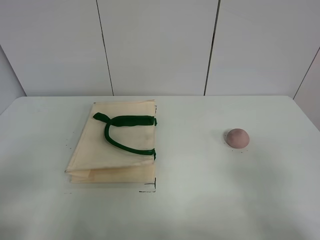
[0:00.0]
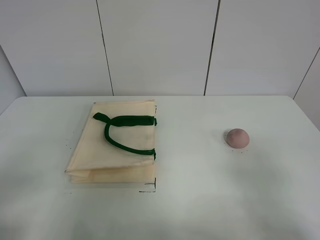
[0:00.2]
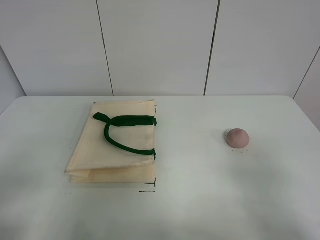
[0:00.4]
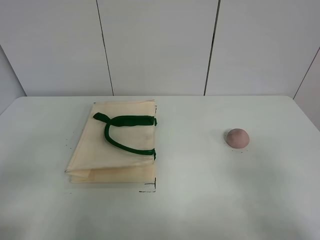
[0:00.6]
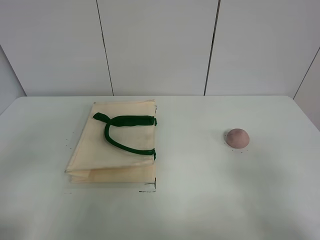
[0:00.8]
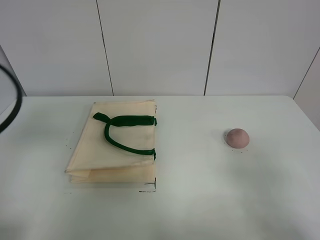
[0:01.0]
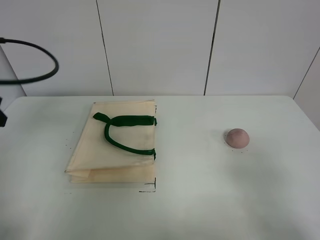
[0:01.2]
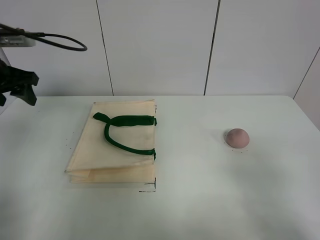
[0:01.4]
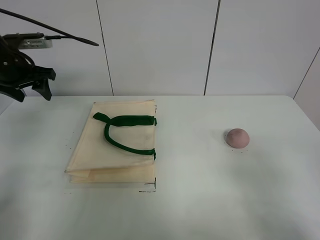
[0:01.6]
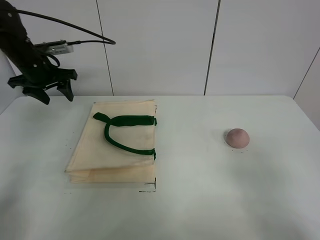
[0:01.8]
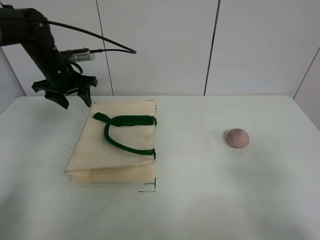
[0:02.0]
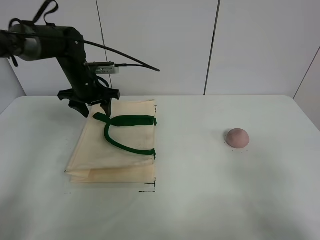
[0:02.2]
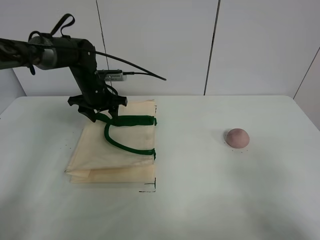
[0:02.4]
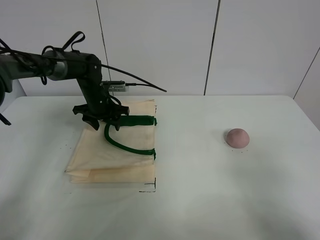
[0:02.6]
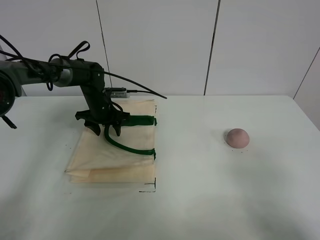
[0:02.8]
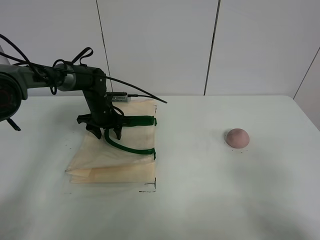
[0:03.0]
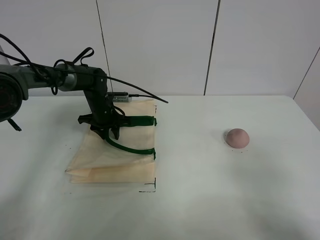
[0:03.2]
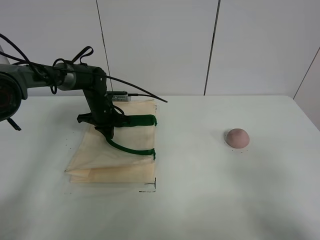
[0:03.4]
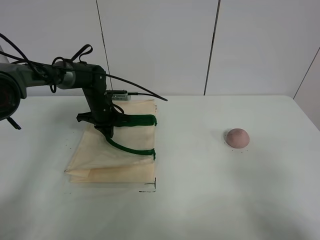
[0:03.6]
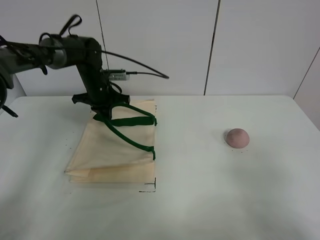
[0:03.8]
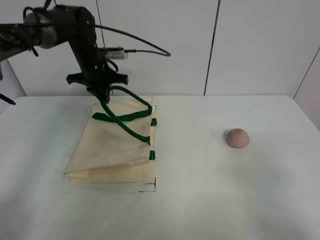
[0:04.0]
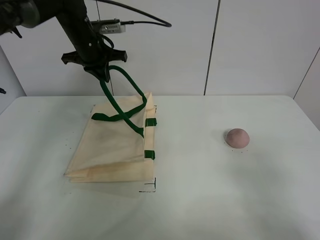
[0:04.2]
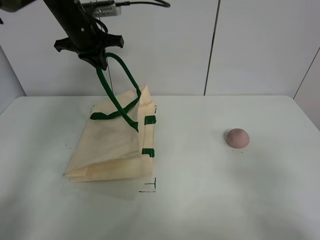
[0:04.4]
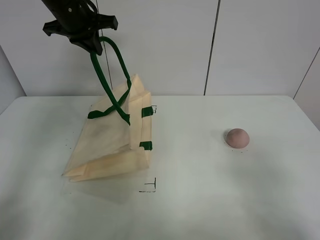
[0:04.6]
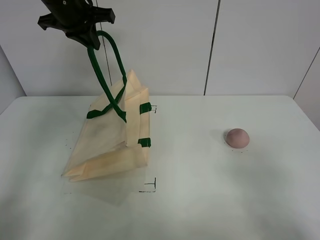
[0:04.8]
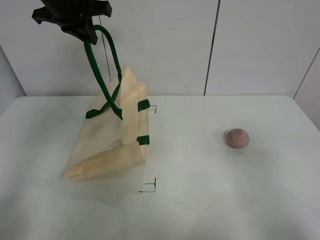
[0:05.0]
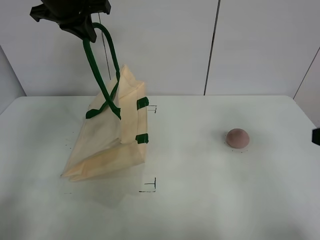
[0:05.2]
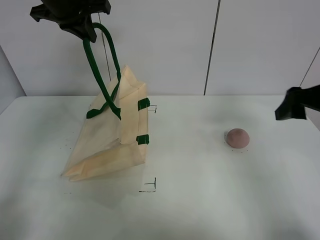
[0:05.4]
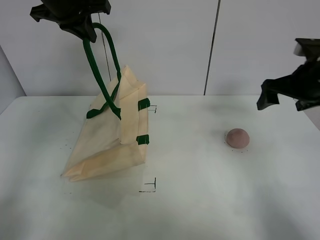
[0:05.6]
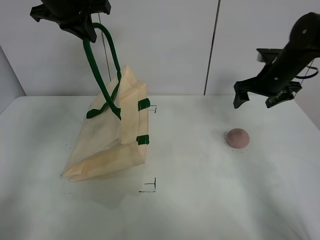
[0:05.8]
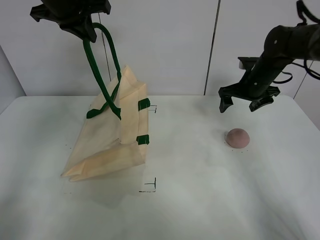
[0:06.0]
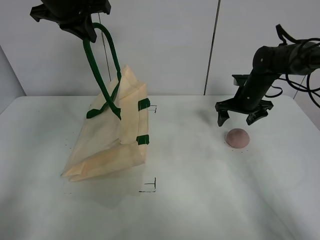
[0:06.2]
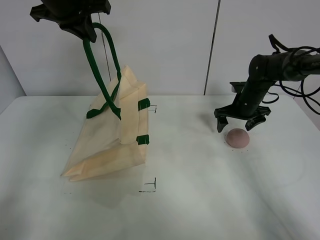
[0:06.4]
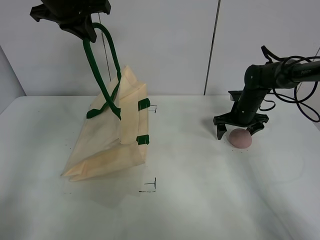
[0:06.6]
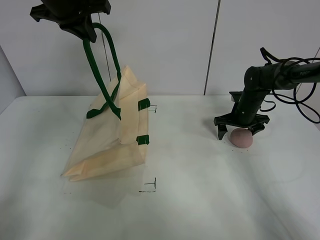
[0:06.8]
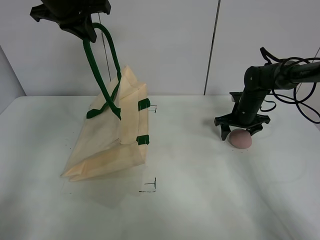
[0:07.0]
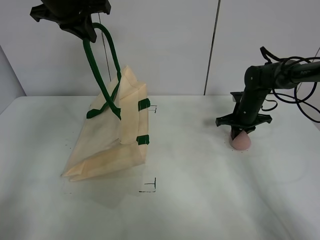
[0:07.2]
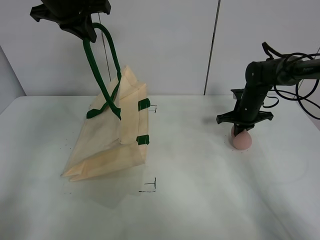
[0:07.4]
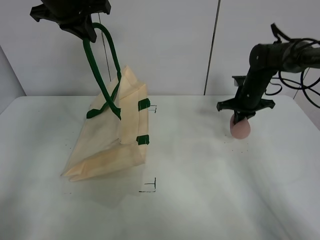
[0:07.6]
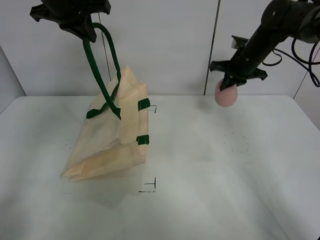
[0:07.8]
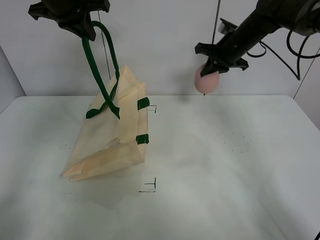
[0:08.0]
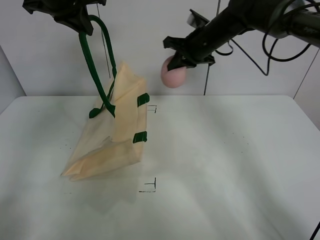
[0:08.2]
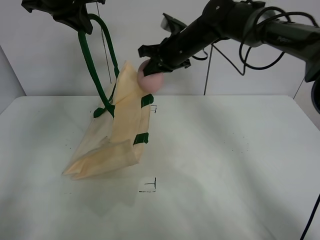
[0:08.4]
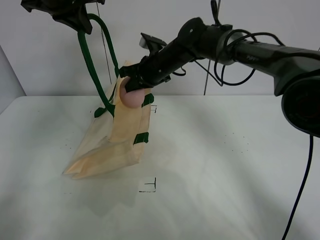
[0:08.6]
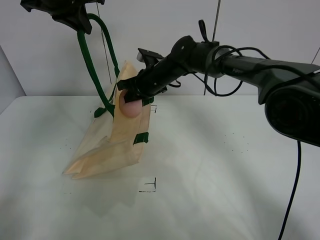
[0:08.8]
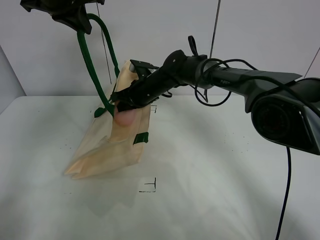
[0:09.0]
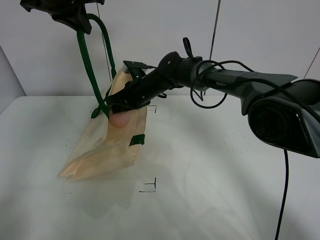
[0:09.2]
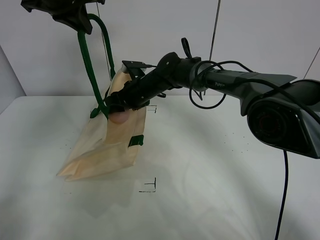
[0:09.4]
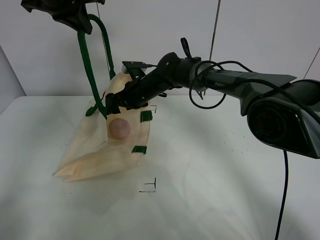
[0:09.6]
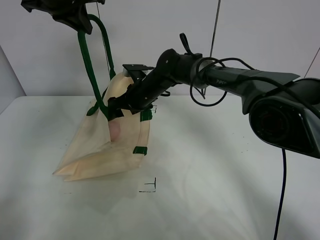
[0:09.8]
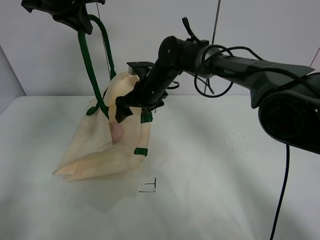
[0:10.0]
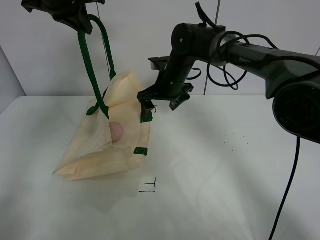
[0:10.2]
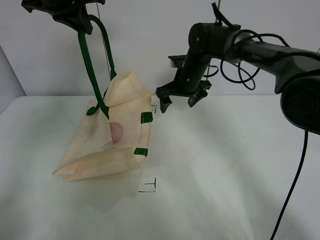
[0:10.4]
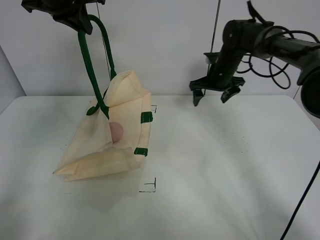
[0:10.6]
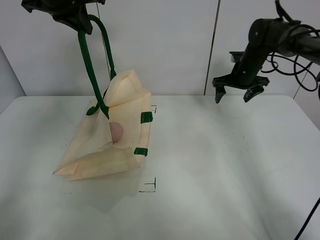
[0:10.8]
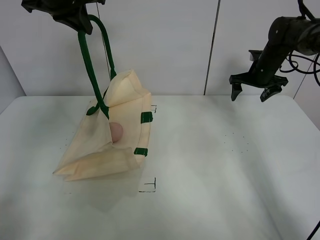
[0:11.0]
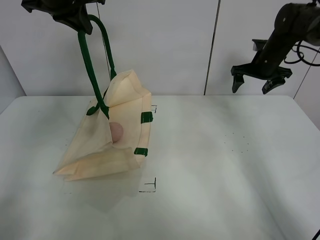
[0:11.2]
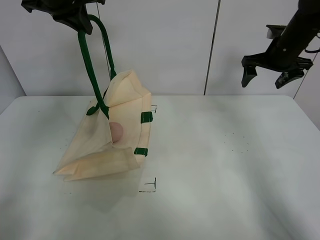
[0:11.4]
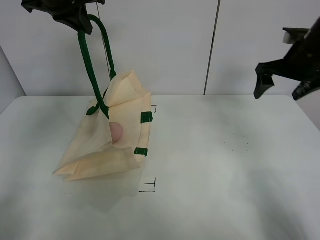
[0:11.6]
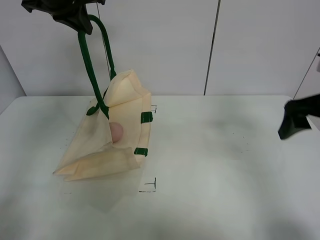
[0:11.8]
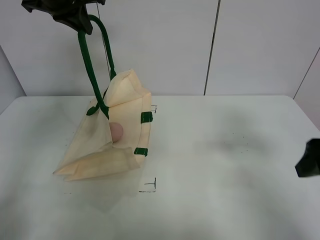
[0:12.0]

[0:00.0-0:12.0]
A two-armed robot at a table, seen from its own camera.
Task of the whole recording: open the white linen bag and put the peach in the bag.
Step, 0:00.0 to 0:04.8: Lift the handbag with left gripper.
Step, 0:05.0 to 0:07.2: Grasp the peach with right gripper.
Step, 0:07.4 to 0:09.6: Place the peach in the handbag with right gripper.
0:01.6 to 0:03.0: The left gripper heads downward, to the right and forward, covering some 25 cm.
0:03.0 to 0:04.4: The left gripper moves upward, about 20 cm, and closes up.
0:04.4 to 0:06.0: The left gripper shifts approximately 10 cm upward, while the right gripper is displaced forward by approximately 40 cm.
0:06.0 to 0:07.6: The right gripper moves downward, some 10 cm, and closes.
0:07.6 to 0:09.0: The right gripper goes roughly 25 cm to the left.
0:09.0 to 0:10.4: The right gripper heads to the right, covering some 5 cm, and opens.
0:10.4 to 0:12.0: The right gripper goes about 35 cm backward and to the right.

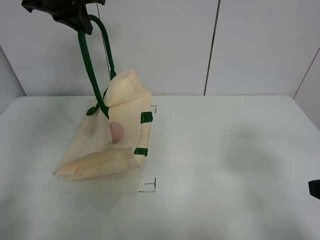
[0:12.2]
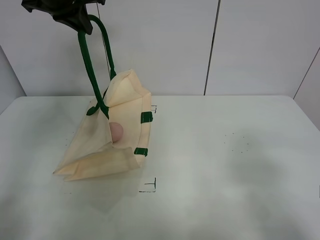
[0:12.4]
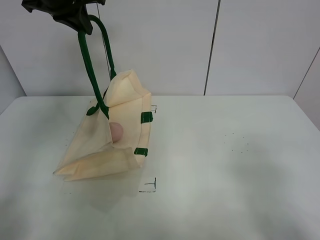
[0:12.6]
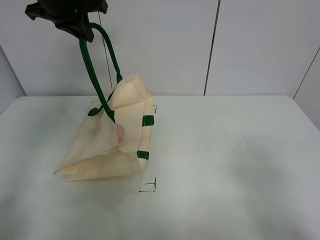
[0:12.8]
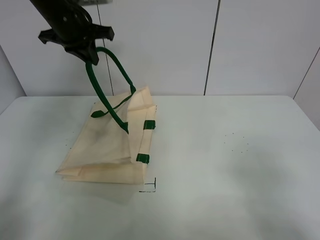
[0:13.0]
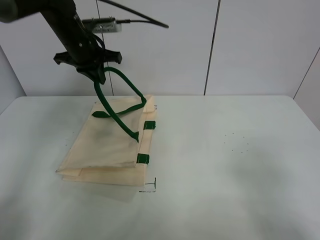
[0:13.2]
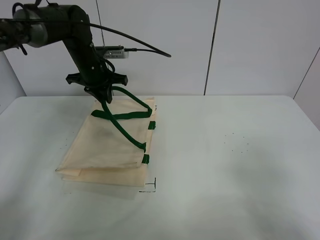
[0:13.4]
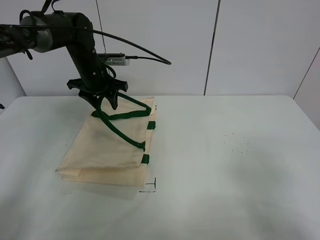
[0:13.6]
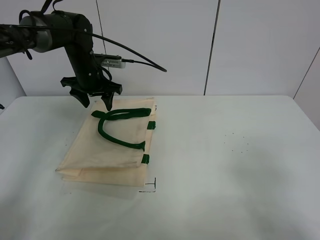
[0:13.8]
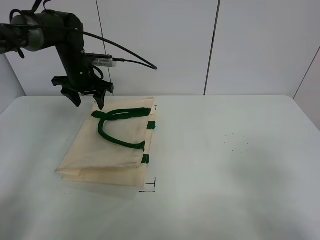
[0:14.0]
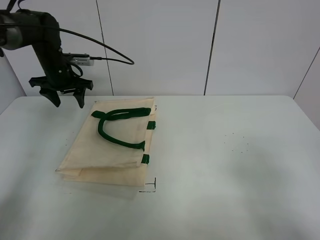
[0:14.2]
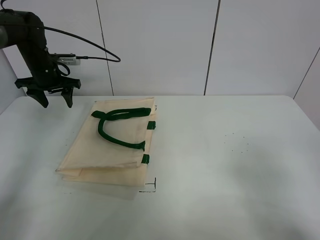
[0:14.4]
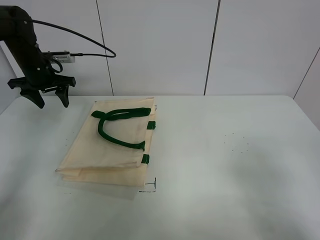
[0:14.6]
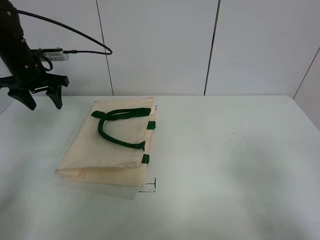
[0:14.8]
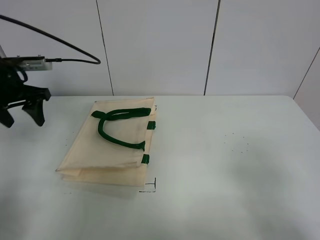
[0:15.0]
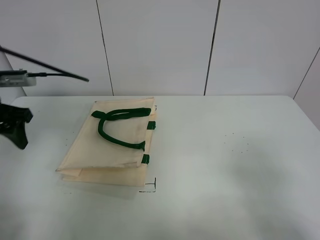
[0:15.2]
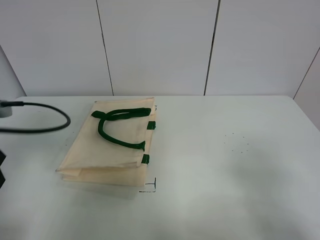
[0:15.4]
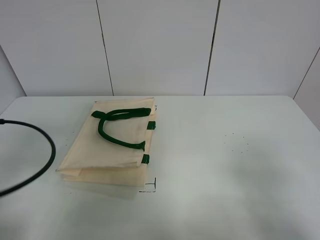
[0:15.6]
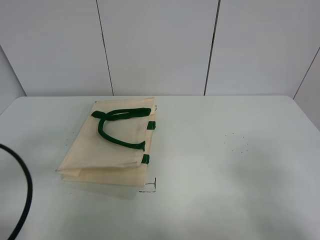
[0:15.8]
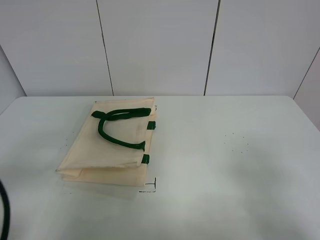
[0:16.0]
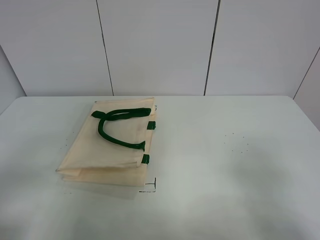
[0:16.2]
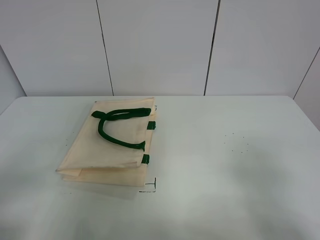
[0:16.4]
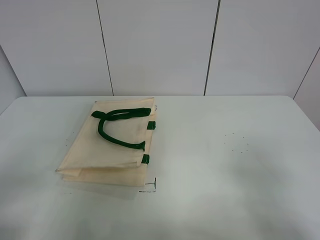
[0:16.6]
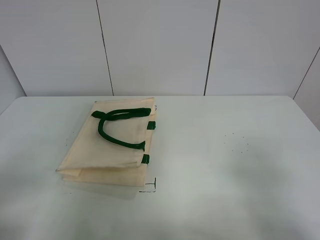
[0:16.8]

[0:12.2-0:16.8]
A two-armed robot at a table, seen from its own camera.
Task of the whole recording: open the white linen bag and put the peach in the bag.
0:12.2 to 0:13.8: The left gripper travels downward by about 20 cm, and opens its fingers. Meanwhile the right gripper shifts approximately 10 cm backward.
0:13.8 to 0:15.2: The left gripper travels backward and to the left by about 20 cm.
0:15.2 to 0:16.8: The left gripper is displaced backward by about 30 cm.

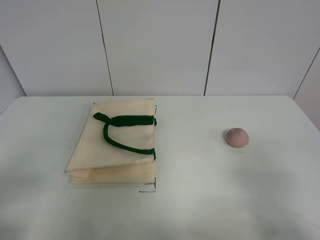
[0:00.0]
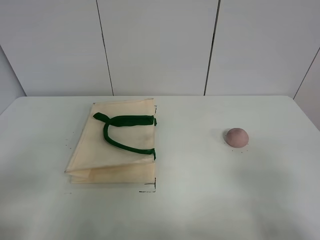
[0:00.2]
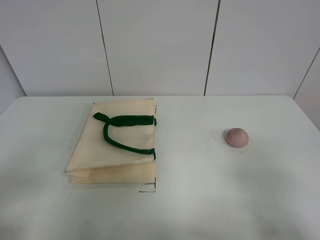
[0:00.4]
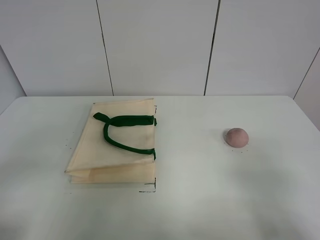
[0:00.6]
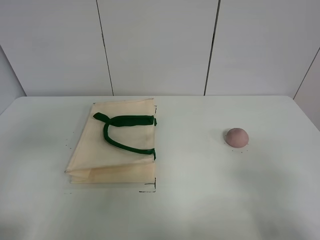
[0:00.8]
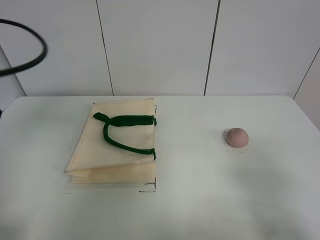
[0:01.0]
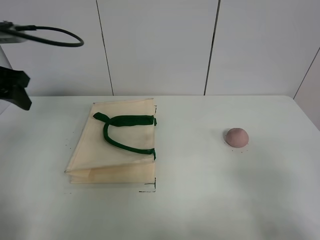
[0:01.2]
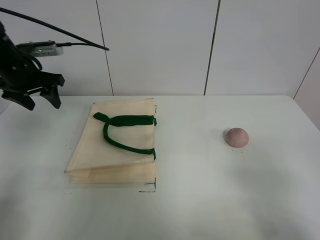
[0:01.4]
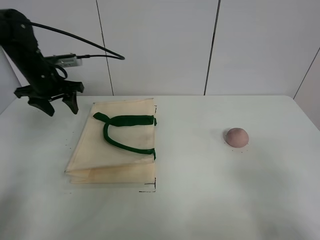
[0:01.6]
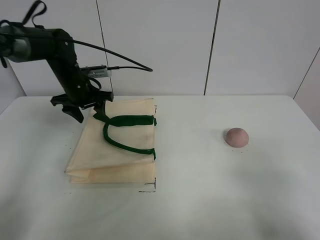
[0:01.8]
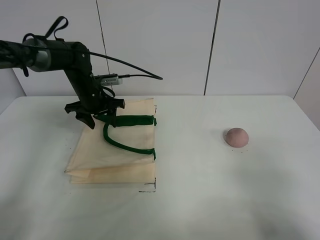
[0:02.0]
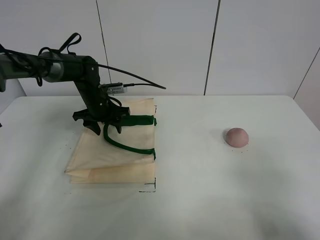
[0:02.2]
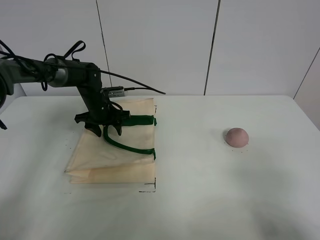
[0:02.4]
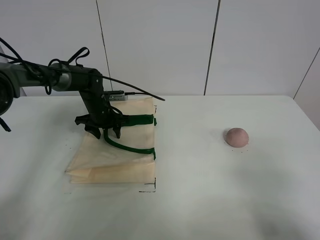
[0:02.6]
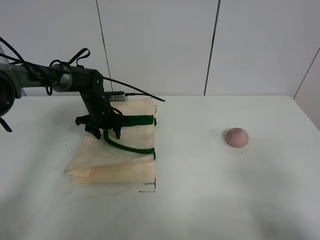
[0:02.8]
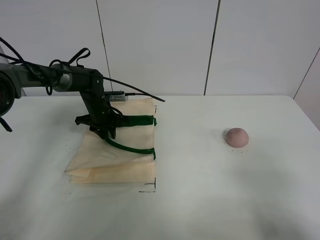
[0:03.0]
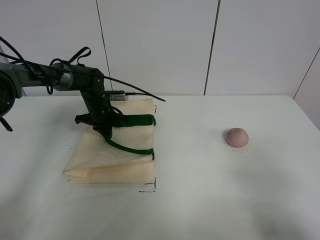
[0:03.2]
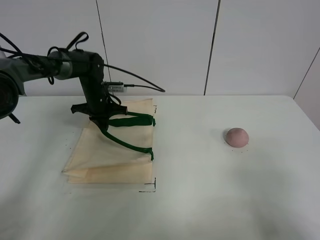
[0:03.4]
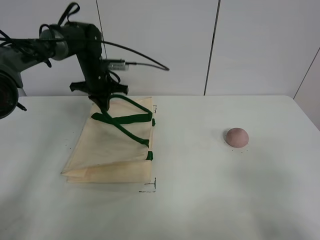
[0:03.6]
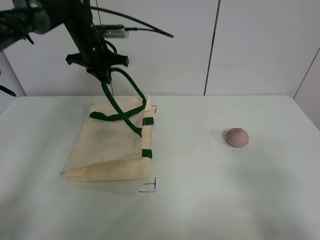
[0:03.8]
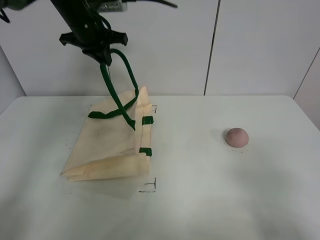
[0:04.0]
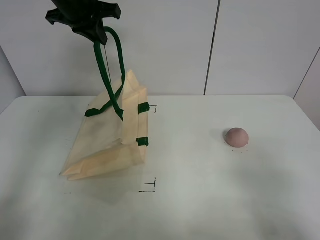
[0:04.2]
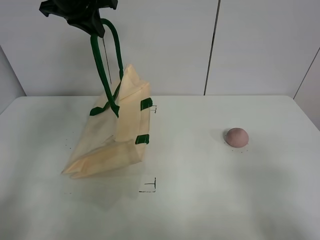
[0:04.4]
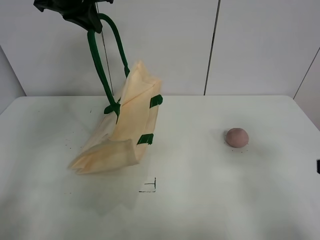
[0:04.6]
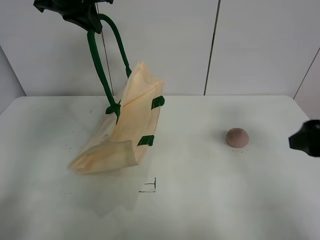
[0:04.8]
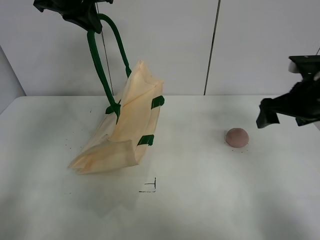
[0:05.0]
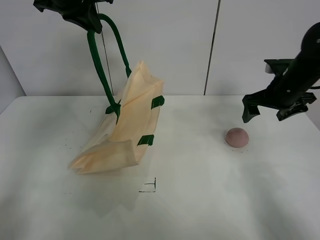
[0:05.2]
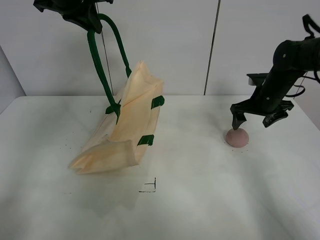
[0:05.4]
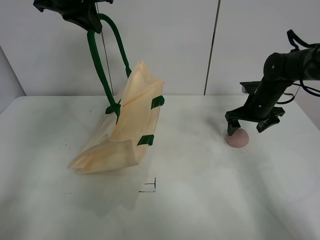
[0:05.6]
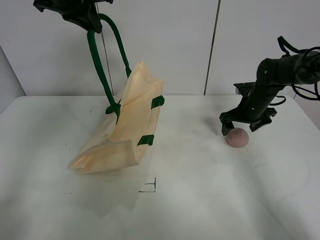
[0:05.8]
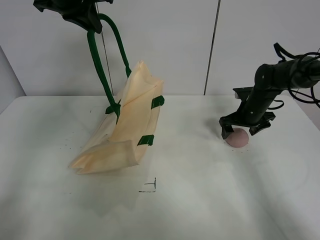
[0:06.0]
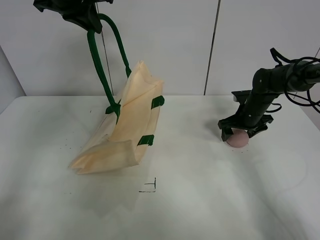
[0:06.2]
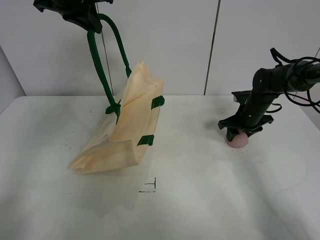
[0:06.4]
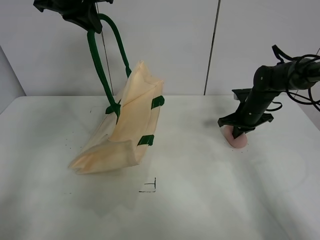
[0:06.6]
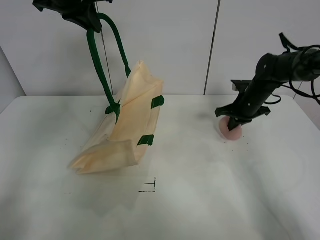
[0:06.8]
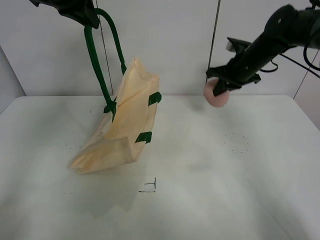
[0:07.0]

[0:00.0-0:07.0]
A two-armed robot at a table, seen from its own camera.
Task of the whole recording: open the white linen bag and put the peach in the bag.
Step, 0:00.0 to 0:04.4: Lift the handbag with left gripper.
Step, 0:04.6 to 0:06.4: Grasp the peach with right gripper.
0:00.0 to 0:01.4: The left gripper shifts approximately 40 cm forward.
0:01.4 to 0:02.8: The left gripper travels downward, to the right and forward by about 20 cm.
0:02.8 to 0:04.2: The left gripper heads upward, covering about 30 cm, and closes its fingers.
0:04.2 to 0:05.6: The right gripper heads forward, covering some 40 cm.
0:05.6 to 0:07.0: The right gripper moves upward and to the left, roughly 15 cm, and closes its fingers.
